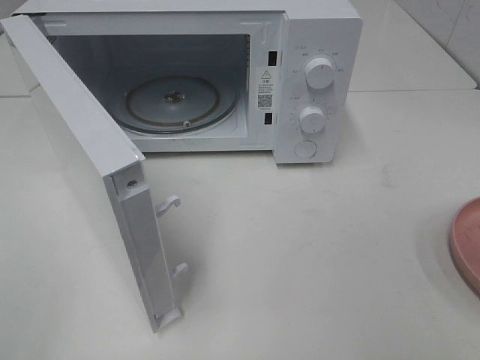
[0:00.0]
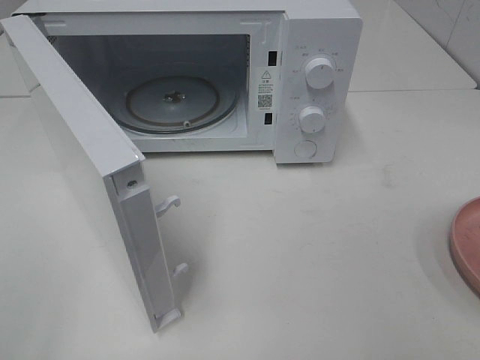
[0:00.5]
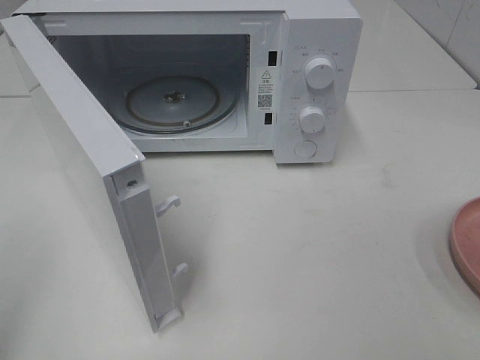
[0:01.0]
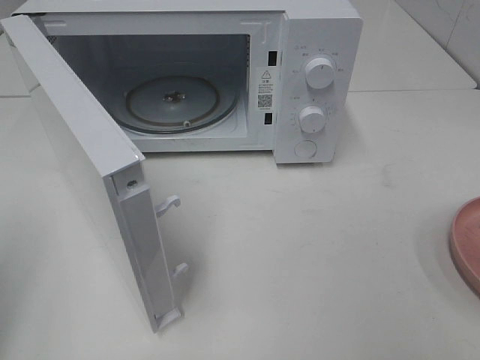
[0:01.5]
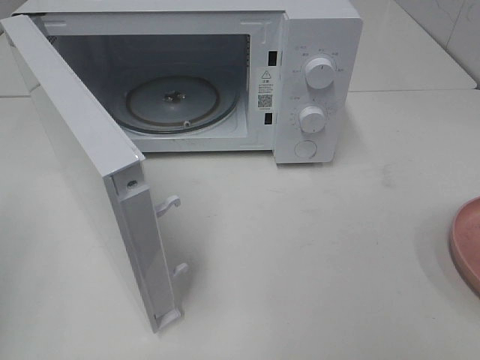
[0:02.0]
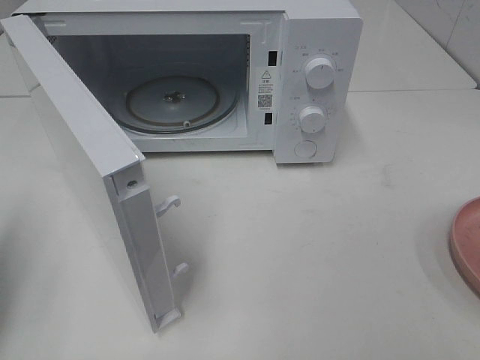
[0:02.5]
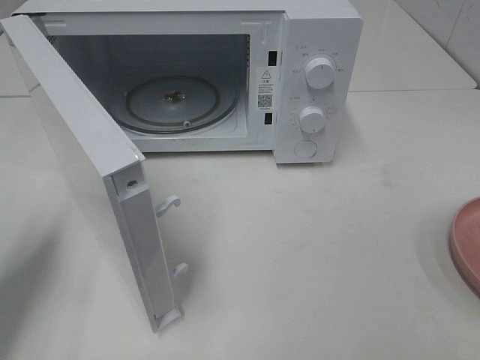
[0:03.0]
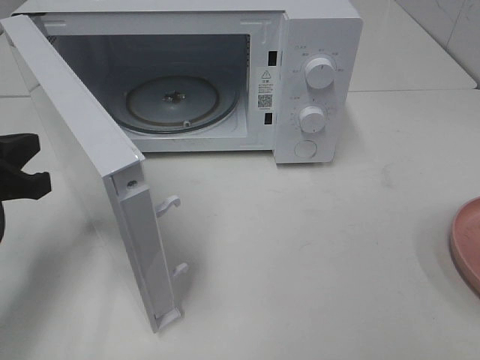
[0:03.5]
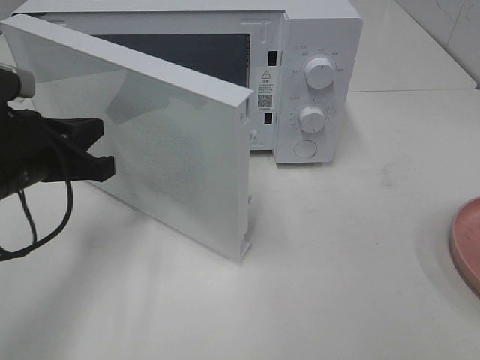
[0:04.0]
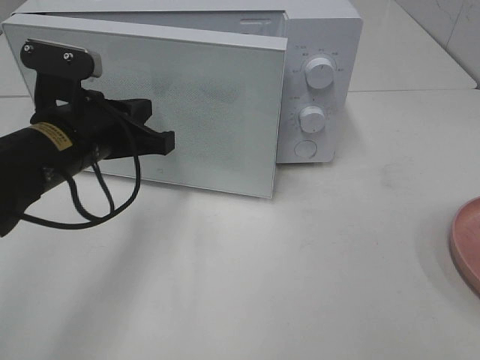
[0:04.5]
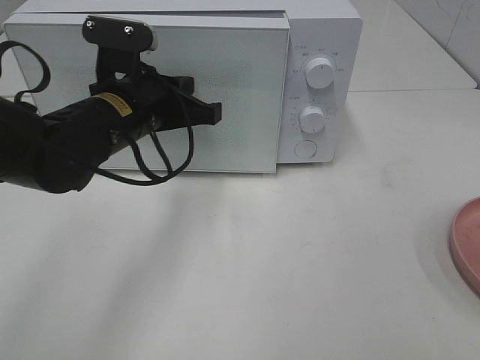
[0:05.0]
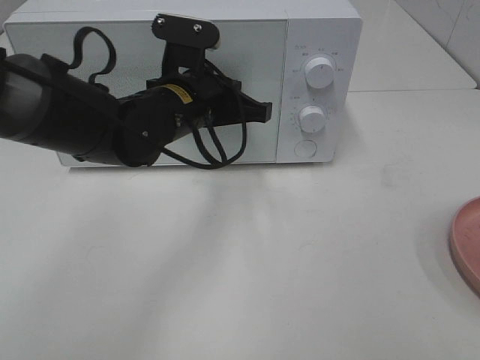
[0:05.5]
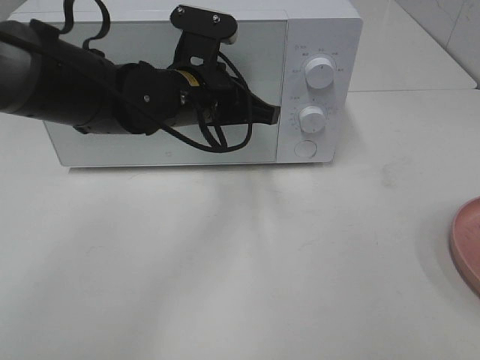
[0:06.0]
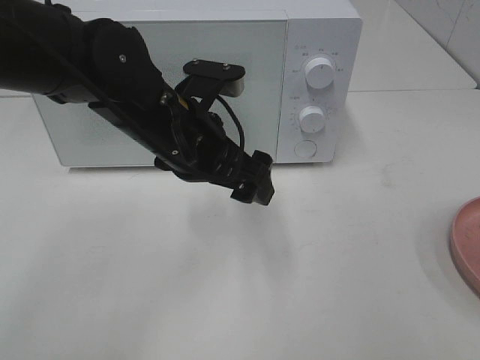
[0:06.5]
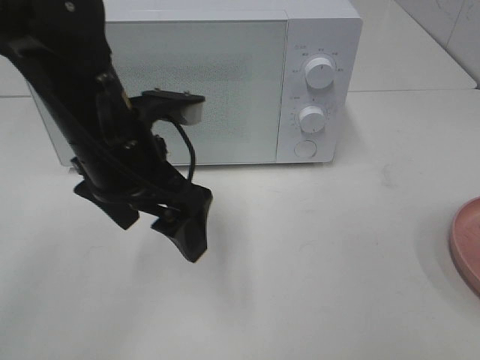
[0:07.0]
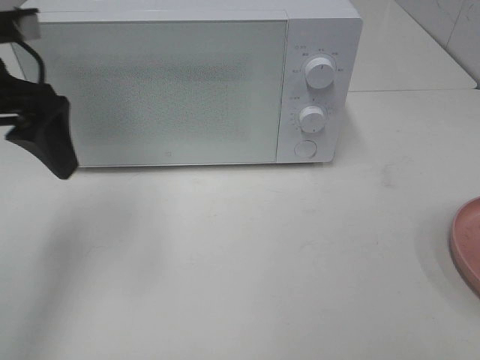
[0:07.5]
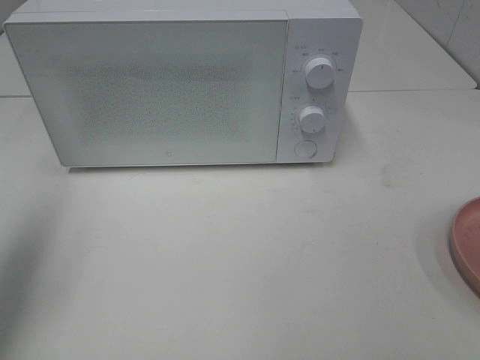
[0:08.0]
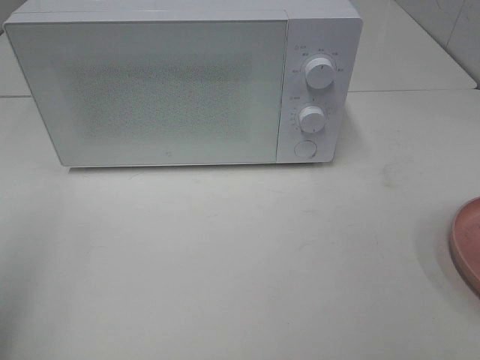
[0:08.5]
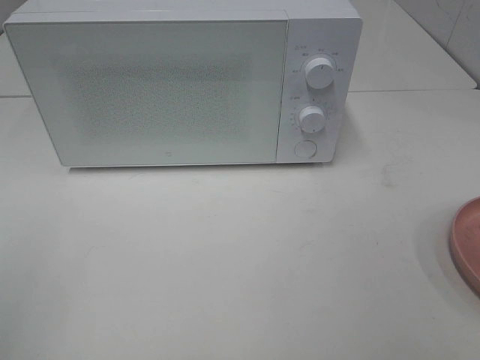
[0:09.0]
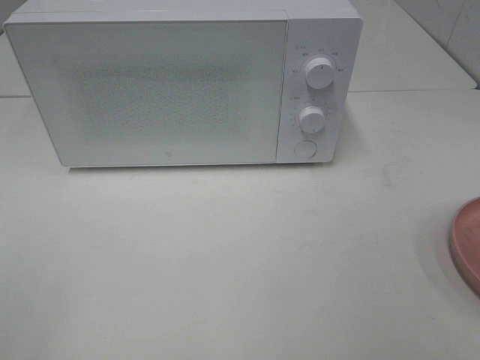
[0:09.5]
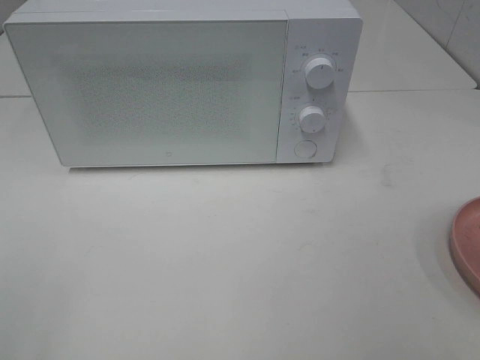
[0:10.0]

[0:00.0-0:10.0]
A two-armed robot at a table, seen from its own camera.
Task of the whole recording: Heat the burger.
Step, 0:00.0 to 0:06.0: Left hand: close the microwave door.
0:02.0 to 0:04.0: The left gripper travels forward, to the right and downward by approximately 20 cm.
0:04.0 to 0:06.0: The left gripper heads to the right and forward, covering approximately 20 cm.
0:06.0 to 0:08.0: The left gripper is displaced to the left, upward and backward by approximately 35 cm, and opens its fingers.
0:08.0 to 0:10.0: The left gripper moves backward, approximately 20 cm.

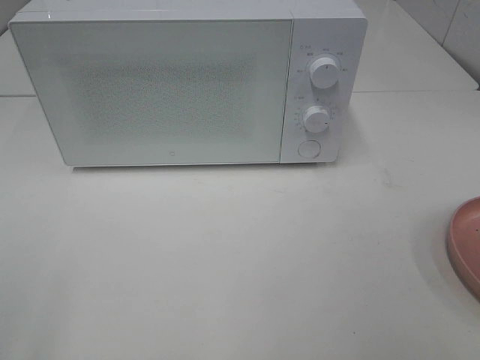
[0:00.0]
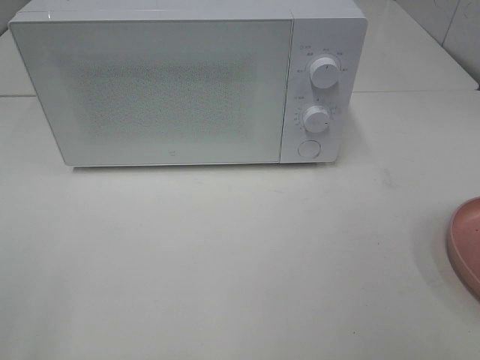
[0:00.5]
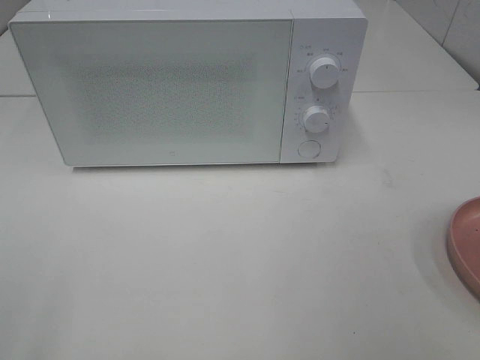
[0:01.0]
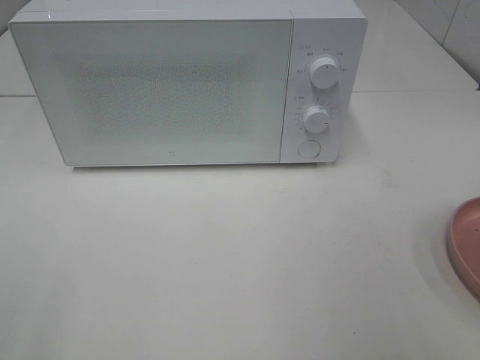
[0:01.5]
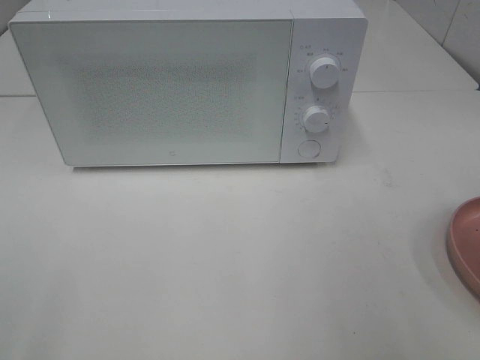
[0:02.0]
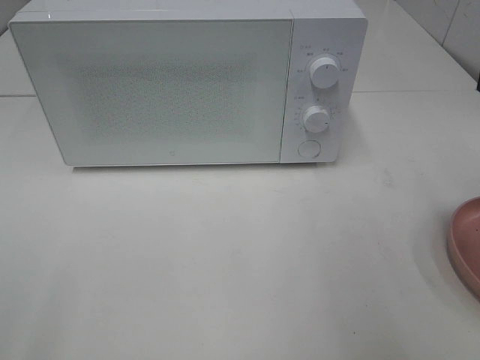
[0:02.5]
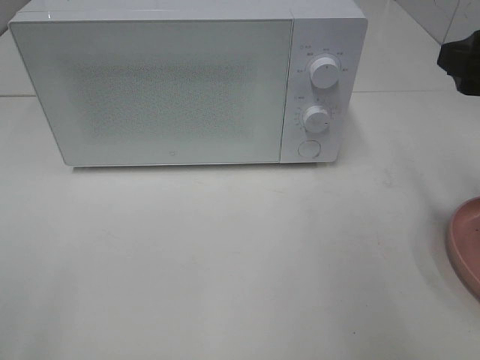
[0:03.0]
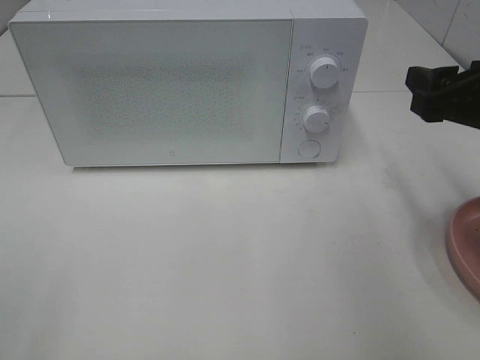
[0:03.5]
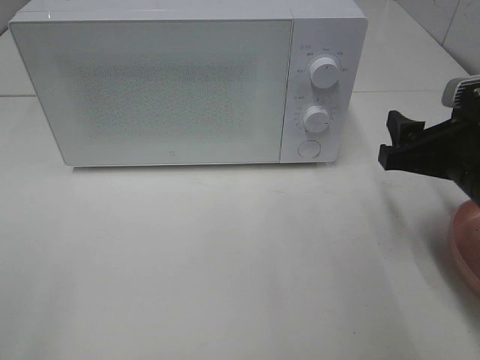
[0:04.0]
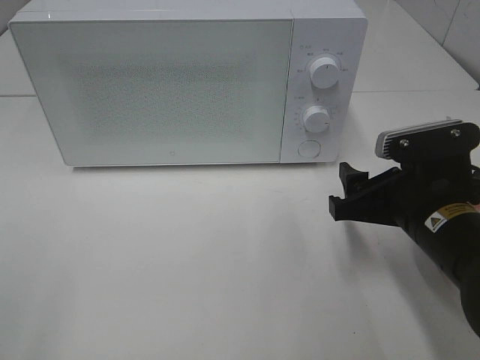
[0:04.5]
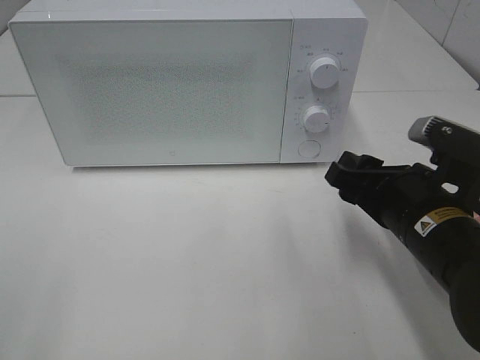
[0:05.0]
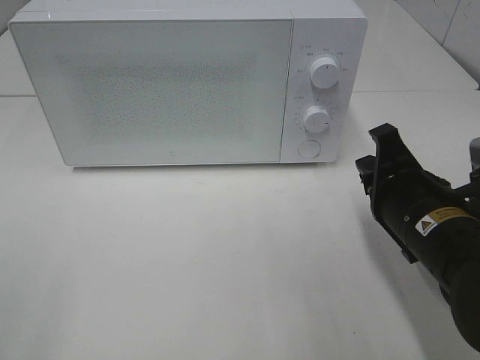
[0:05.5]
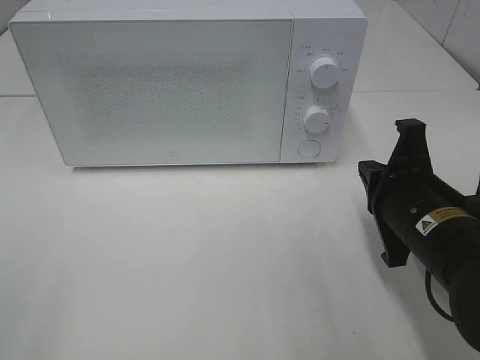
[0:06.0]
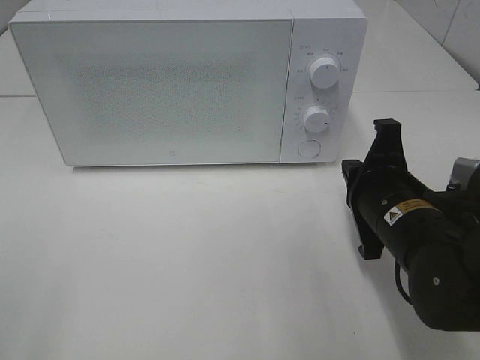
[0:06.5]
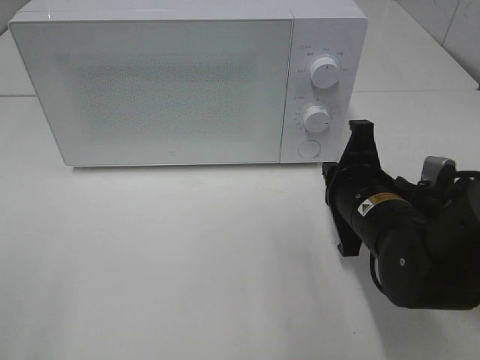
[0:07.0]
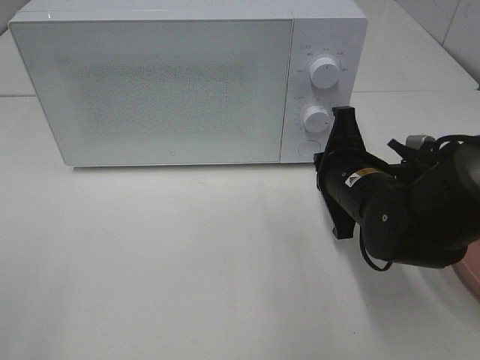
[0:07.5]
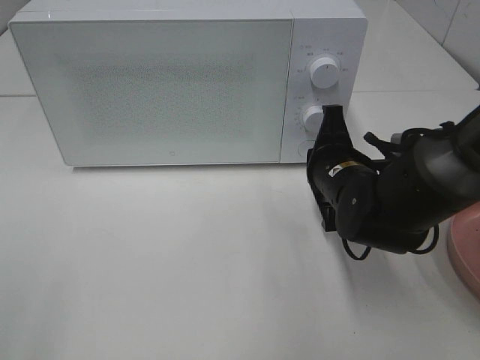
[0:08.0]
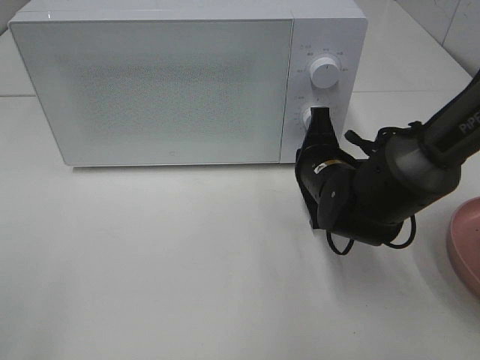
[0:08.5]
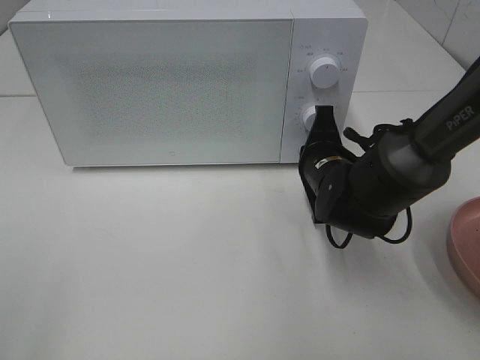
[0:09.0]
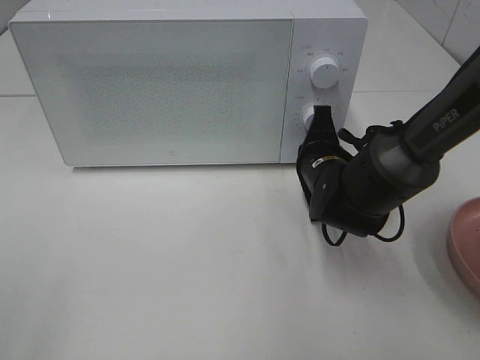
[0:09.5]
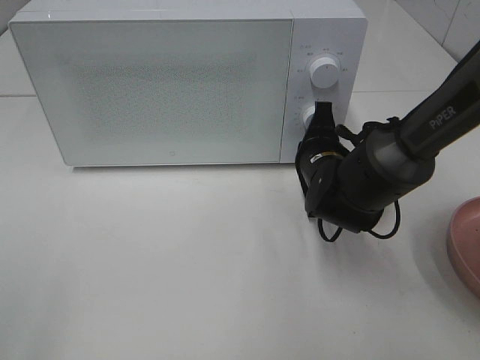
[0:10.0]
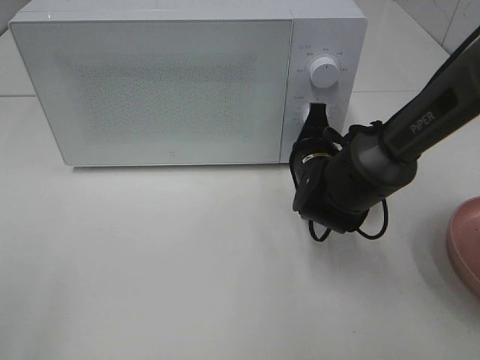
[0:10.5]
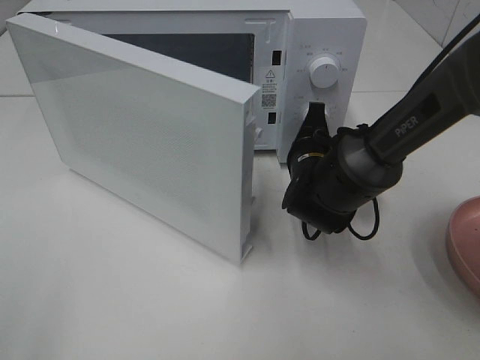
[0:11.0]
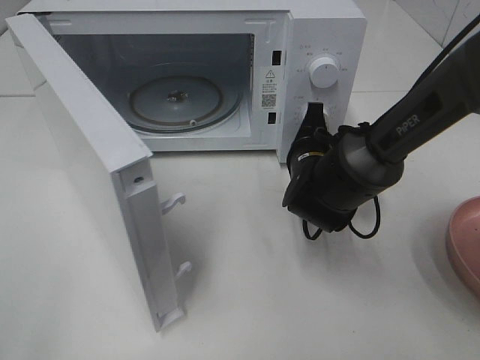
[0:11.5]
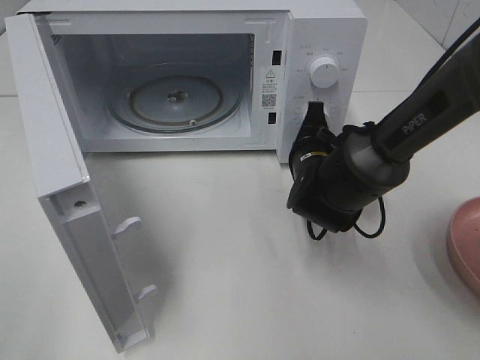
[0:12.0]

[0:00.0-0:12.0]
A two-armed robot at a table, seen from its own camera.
Task of the whole recording: Heat the burger.
0:02.0 to 0:04.0: The right gripper heads downward and forward, covering some 20 cm.
0:04.0 to 0:06.0: The right gripper moves to the left, about 5 cm, and closes.
0:06.0 to 0:08.0: The right gripper is displaced forward by some 10 cm.
0:08.0 to 0:10.0: The grippers make only small movements.

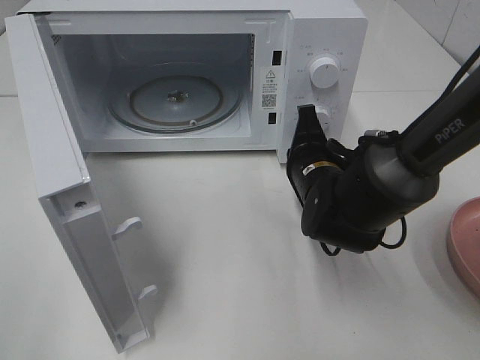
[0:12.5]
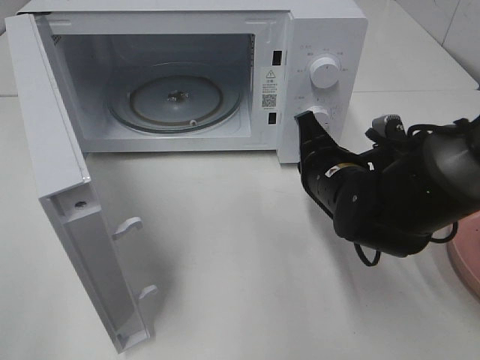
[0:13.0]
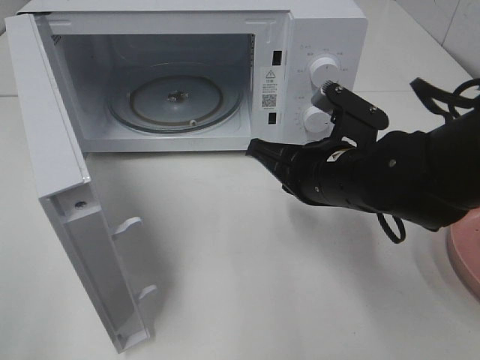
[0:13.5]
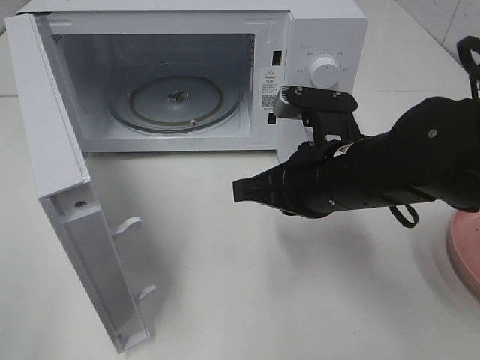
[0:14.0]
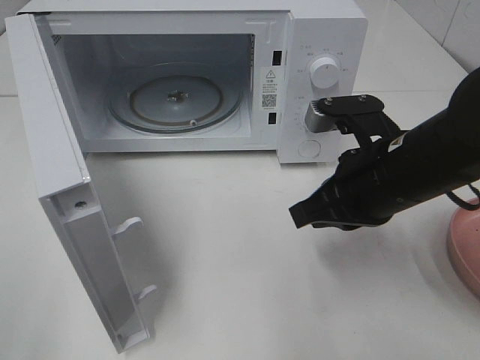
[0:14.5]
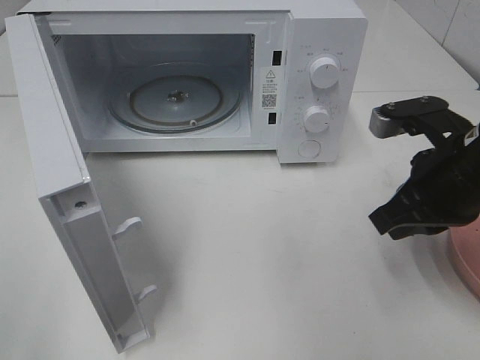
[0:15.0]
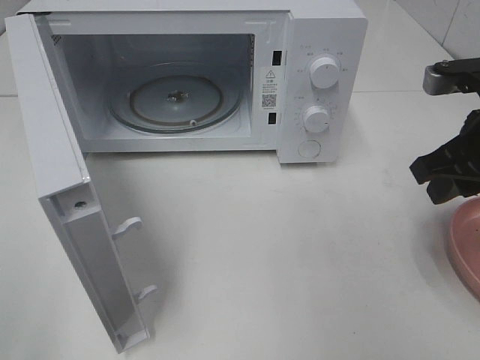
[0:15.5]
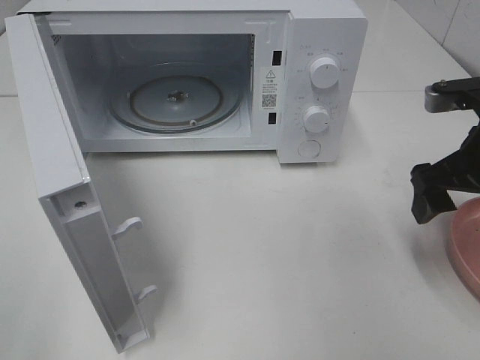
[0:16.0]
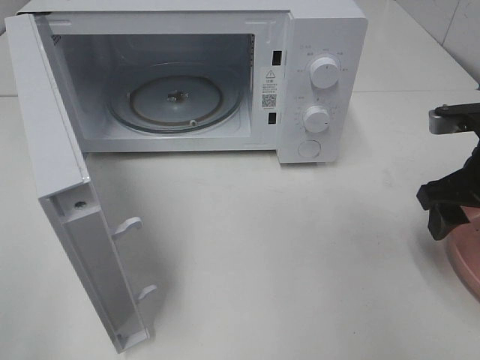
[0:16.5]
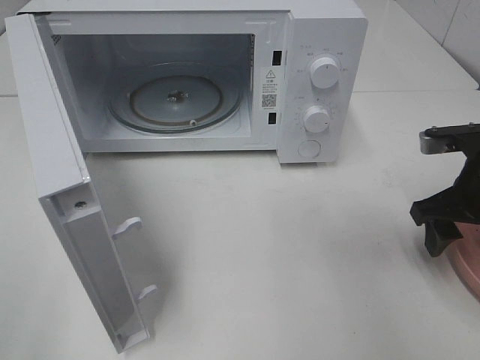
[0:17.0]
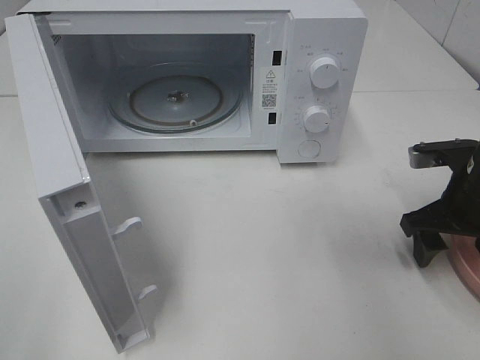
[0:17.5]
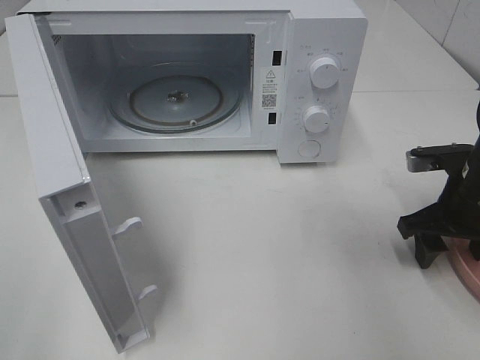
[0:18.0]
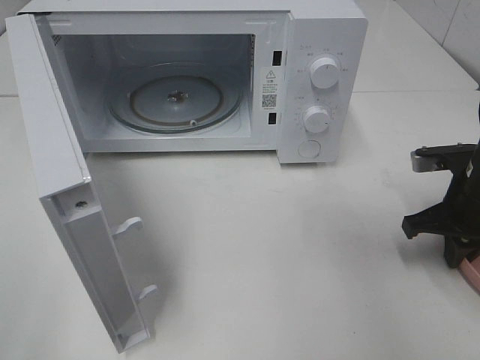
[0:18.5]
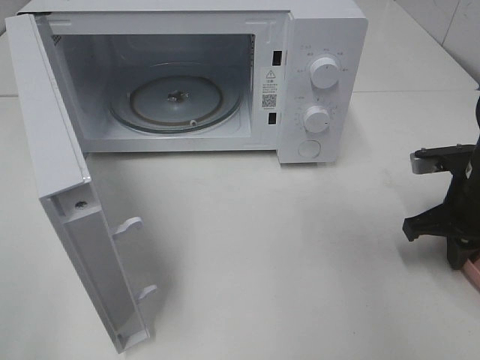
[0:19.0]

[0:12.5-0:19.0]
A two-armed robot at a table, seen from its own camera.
Task of the whole recording: Heat the burger.
Step, 0:12.5 to 0:18.5: Right hand: grab the plate with the hamburger.
0:12.5 to 0:14.5: The right gripper shifts some 10 cm upward and backward.
0:14.5 to 0:17.0: The right gripper goes some 10 cm to the right, and opens up.
0:17.0 to 0:19.0: The right gripper closes its fingers.
